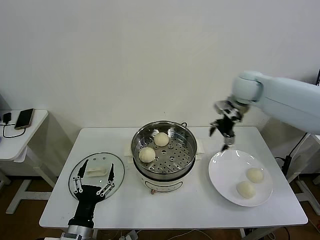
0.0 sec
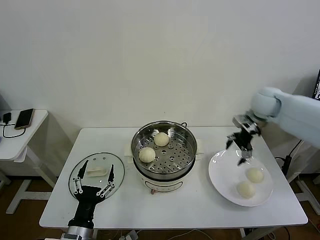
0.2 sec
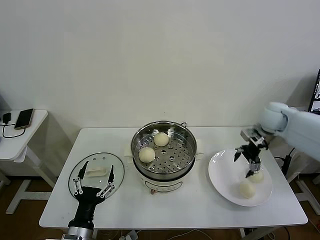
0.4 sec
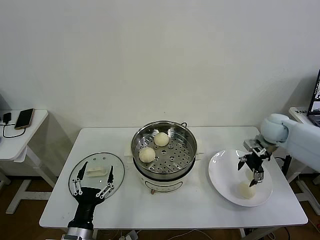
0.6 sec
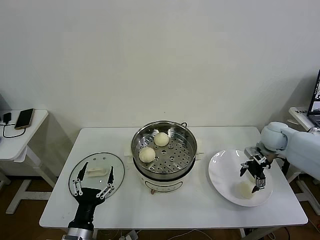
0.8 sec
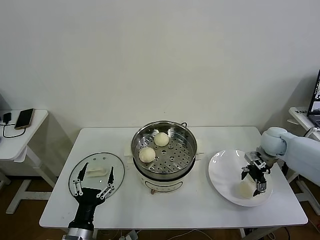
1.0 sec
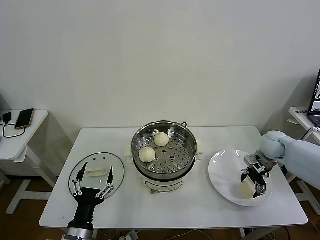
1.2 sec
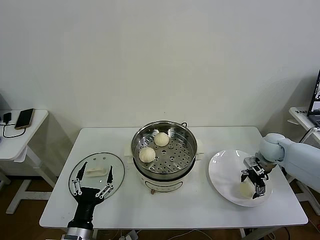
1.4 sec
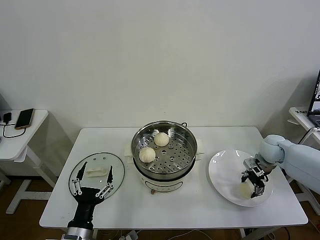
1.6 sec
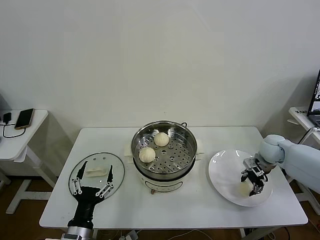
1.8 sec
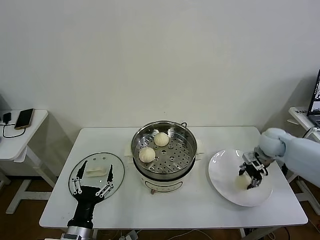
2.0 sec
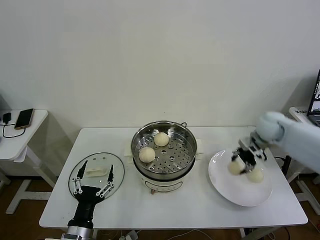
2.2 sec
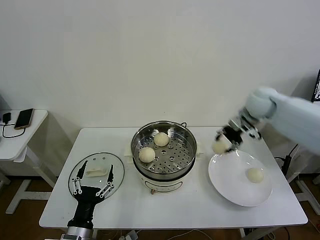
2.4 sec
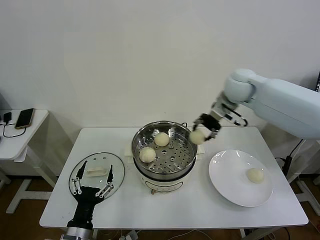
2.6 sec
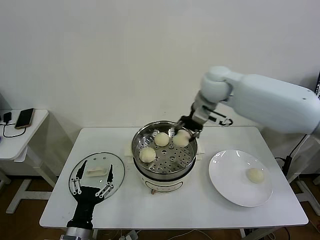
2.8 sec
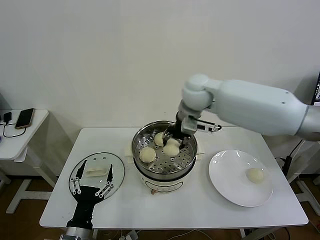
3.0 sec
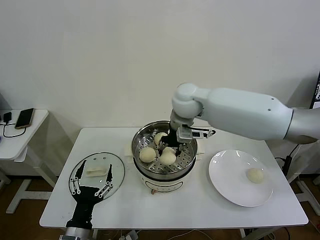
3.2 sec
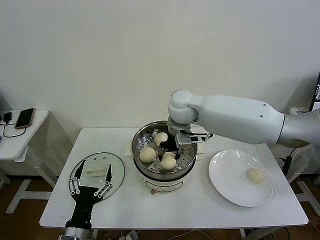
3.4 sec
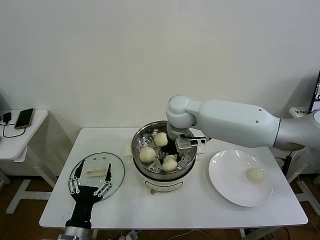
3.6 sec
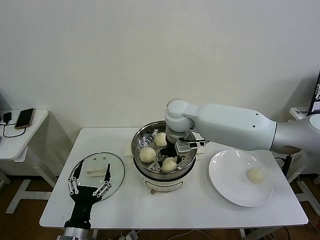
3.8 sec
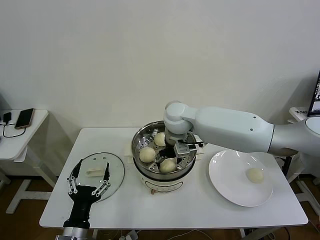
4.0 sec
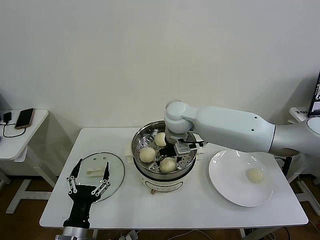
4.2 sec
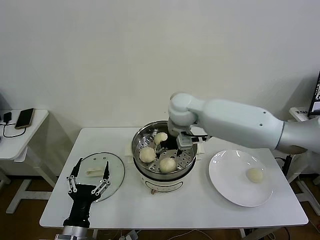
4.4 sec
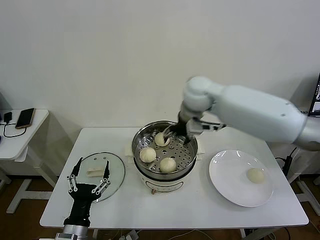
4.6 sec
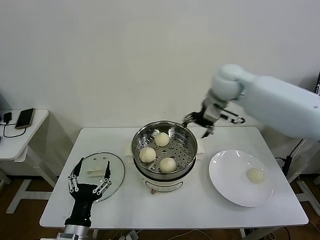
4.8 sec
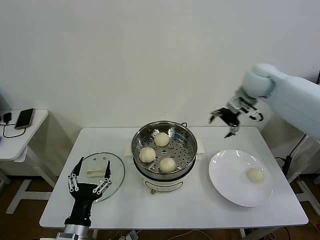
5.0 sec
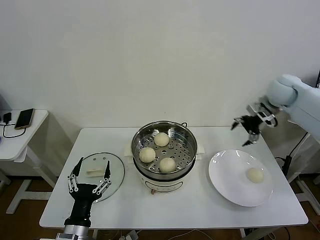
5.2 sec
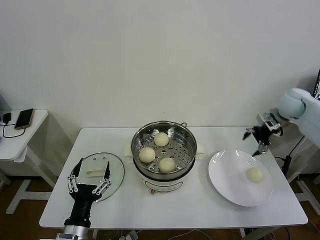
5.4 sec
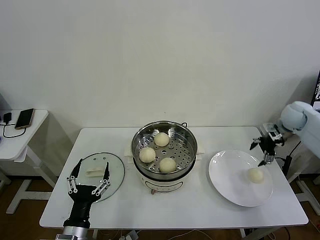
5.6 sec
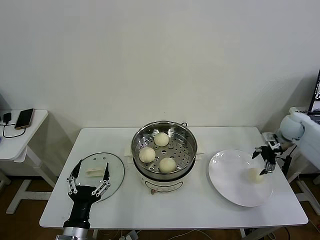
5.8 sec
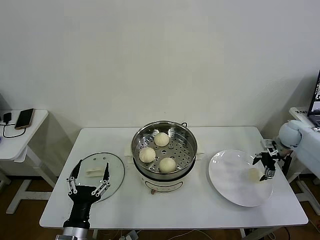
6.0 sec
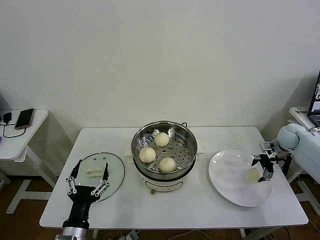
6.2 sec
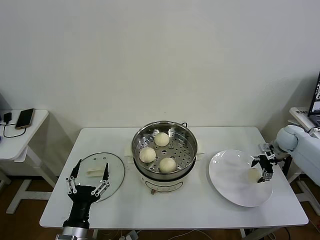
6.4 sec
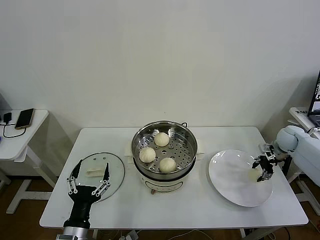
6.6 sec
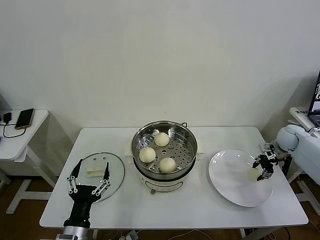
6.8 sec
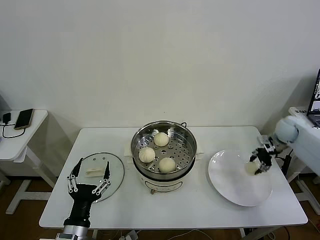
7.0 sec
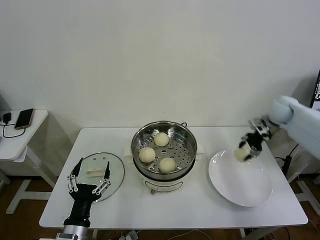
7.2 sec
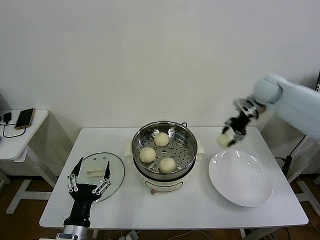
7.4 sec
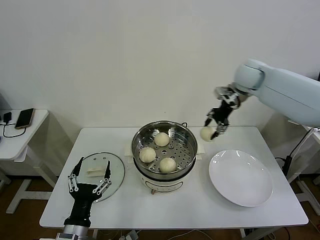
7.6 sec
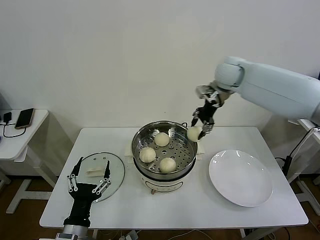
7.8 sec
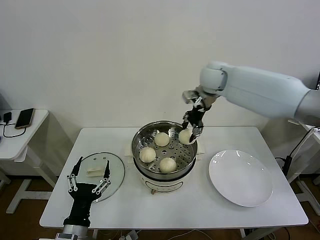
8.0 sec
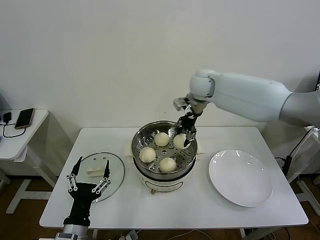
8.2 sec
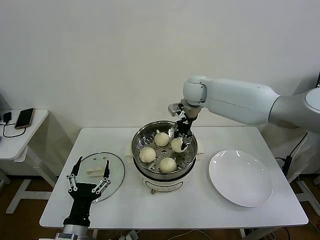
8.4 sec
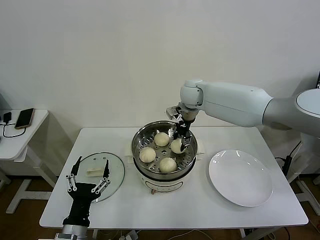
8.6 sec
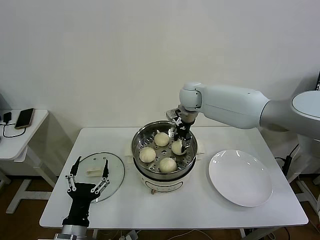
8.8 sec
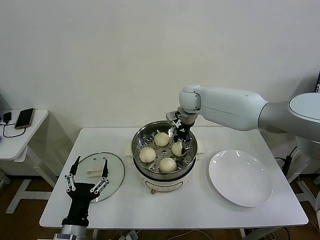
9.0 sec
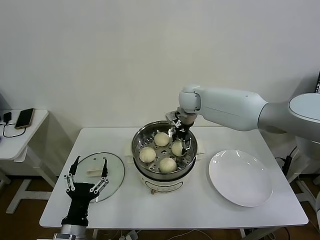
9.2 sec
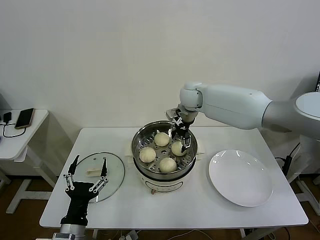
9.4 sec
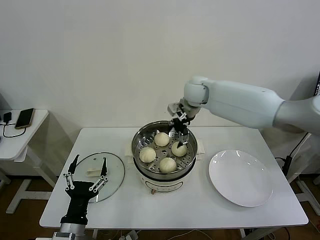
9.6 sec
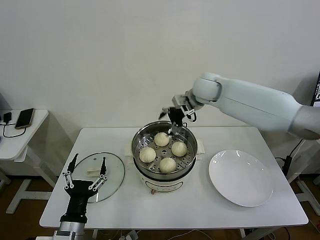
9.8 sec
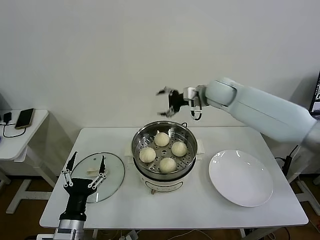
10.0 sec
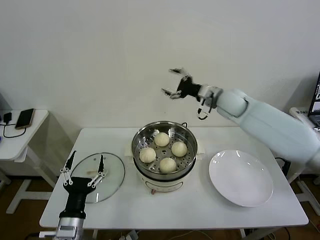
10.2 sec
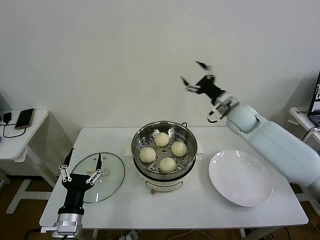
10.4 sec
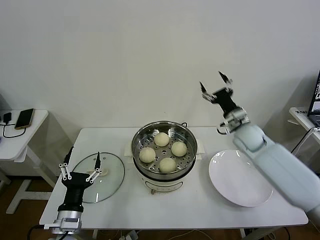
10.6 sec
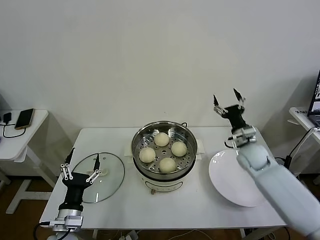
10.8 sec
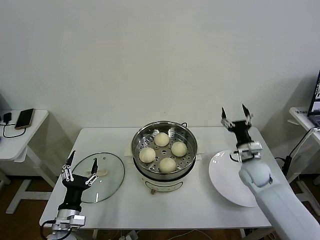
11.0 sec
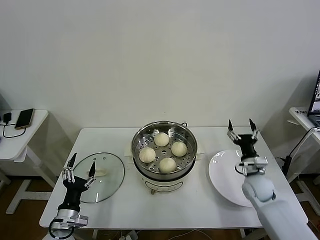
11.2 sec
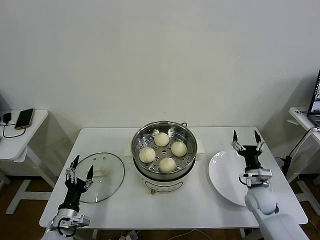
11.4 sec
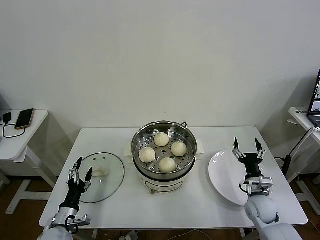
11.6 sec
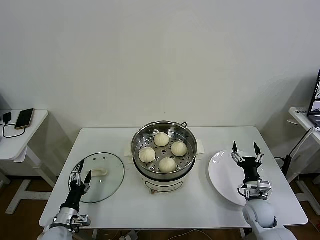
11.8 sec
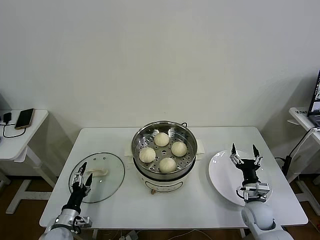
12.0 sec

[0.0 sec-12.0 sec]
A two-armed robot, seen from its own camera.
Task of the whole recording: take steamed baozi put them in steamer then cover it.
Step, 0.0 sec to 1.8 sec: Grasp the baozi in the plate with right gripper.
Step, 2.0 sec to 4.4 sec: Place the baozi on the steamer with right gripper.
Step, 4.6 sec to 6.6 sec: Grasp the baozi in the plate with right gripper.
Step, 7.0 sec to 9.2 sec: Place the baozi on the steamer with right gripper.
0.0 sec to 1.6 sec: The right gripper is displaced downward and to the right by about 20 cm, and closes its fingers.
1.6 sec to 3.0 sec: The right gripper travels to the left and upward by approximately 40 cm.
3.0 sec to 4.4 sec: The right gripper opens.
4.4 sec to 6.0 sec: The right gripper goes roughly 50 cm to the right and downward.
6.0 sec to 7.6 sec: The right gripper goes approximately 30 cm to the left and upward, and closes up.
7.6 sec to 9.0 sec: The right gripper moves to the left and downward, roughly 20 cm.
9.0 sec to 10.4 sec: The right gripper heads to the right and backward, covering some 20 cm, and opens.
10.4 sec to 12.0 sec: The right gripper is displaced downward and backward by approximately 35 cm. The left gripper goes some 20 cm downward, to the left and forward.

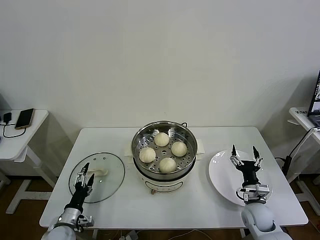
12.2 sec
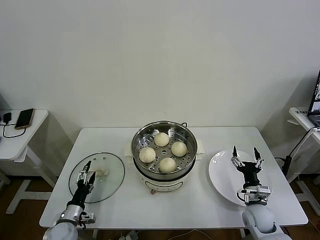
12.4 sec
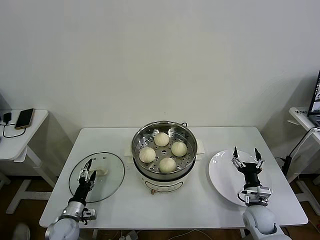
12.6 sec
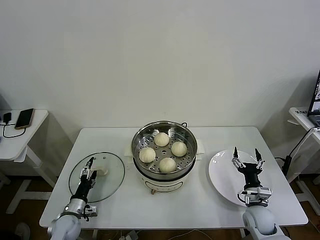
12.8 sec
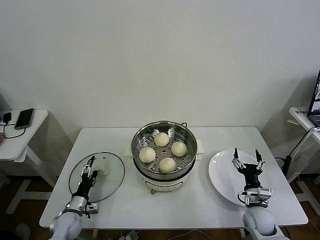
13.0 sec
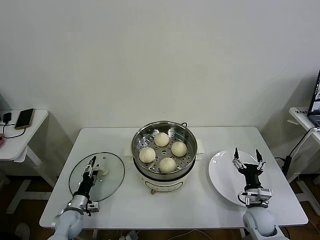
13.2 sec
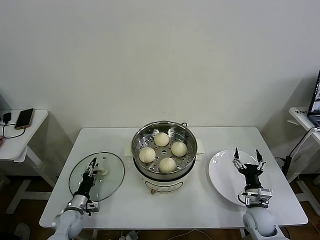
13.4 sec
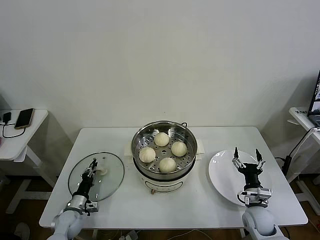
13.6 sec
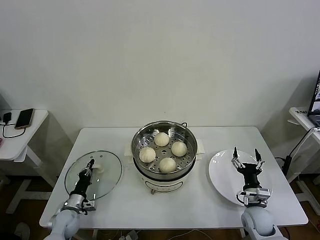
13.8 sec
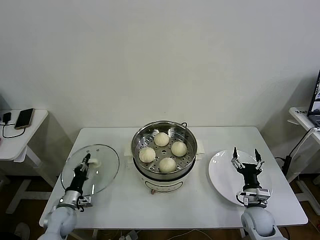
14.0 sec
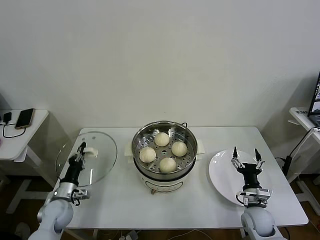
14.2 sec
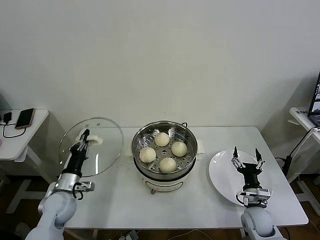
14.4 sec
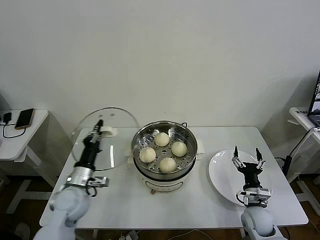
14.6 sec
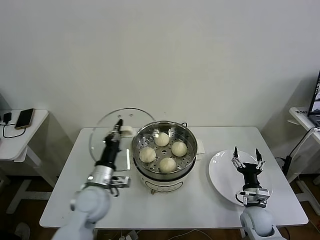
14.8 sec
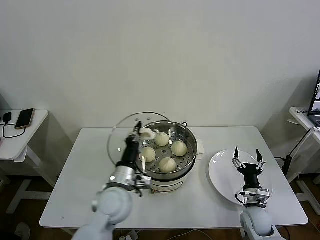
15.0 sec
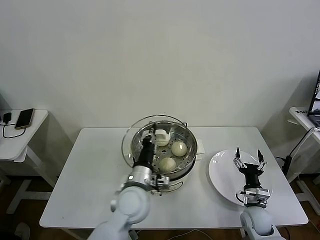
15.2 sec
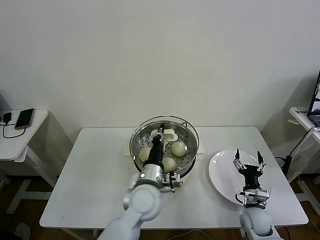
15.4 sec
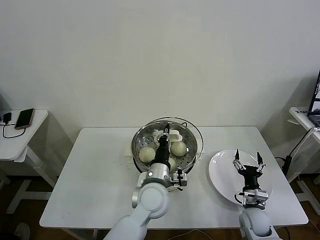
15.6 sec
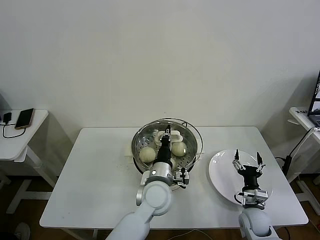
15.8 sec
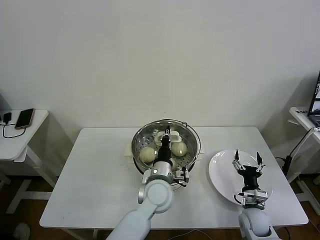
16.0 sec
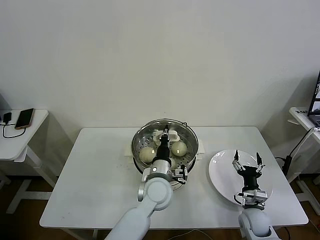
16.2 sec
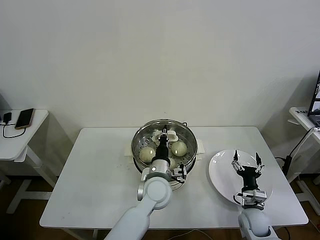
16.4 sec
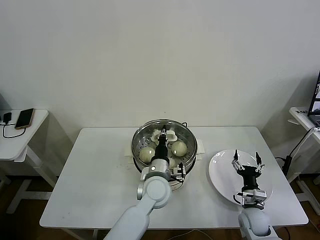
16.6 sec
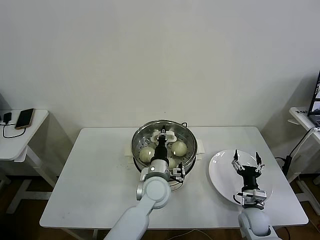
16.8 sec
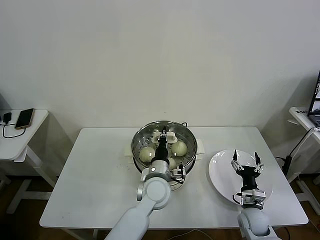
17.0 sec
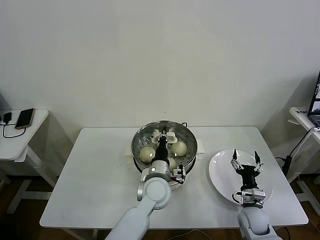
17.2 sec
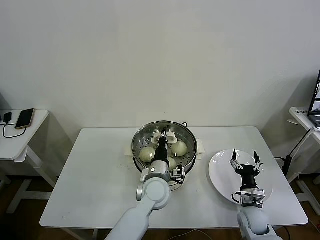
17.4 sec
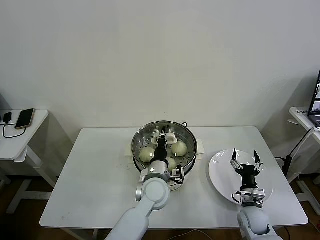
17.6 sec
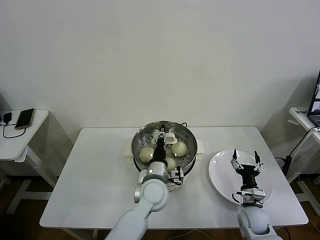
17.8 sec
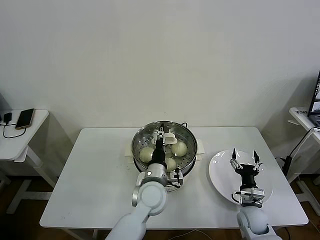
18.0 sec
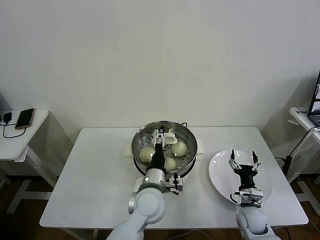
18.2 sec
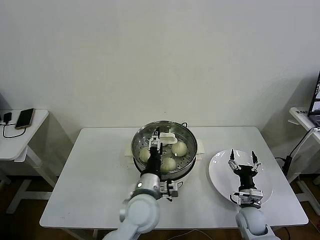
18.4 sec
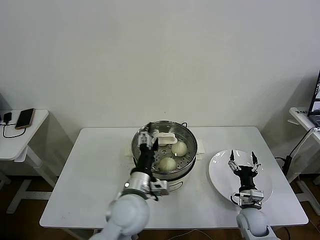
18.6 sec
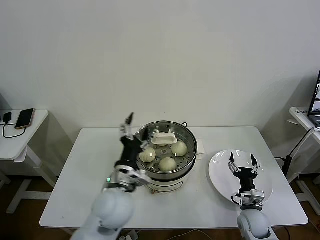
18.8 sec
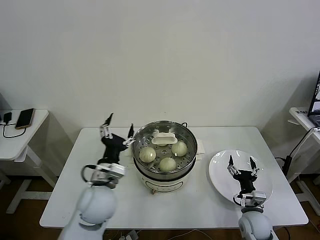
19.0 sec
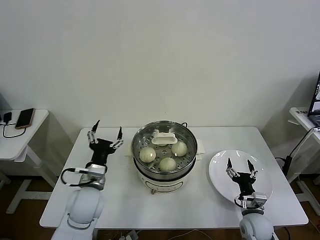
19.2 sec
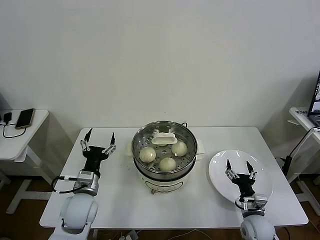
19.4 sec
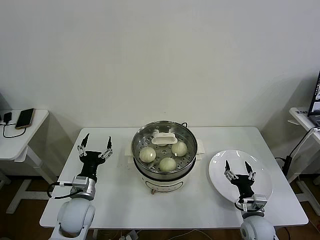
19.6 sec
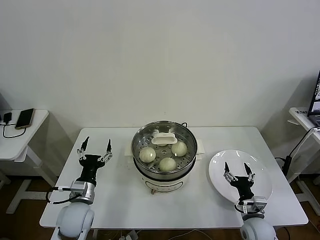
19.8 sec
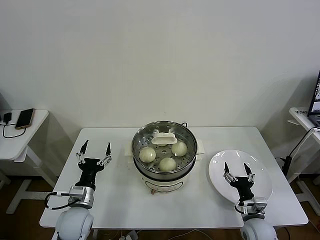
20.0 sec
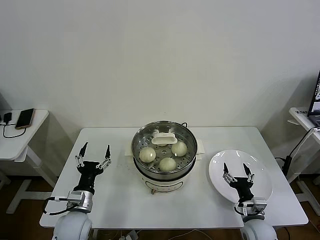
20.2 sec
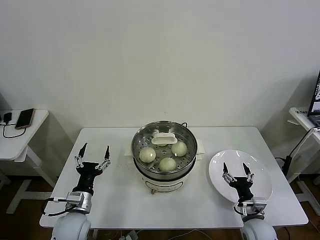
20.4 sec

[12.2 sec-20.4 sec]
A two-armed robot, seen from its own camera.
Task of the whole recording: take steamed baozi put them in steamer then cover it.
Step, 14.0 sec to 18.0 sec: Place the pot lid on the steamer with left gripper.
12.2 sec to 13.8 sec: The left gripper heads forward, covering some 5 cm, and closes.
13.8 sec to 15.4 sec: The left gripper goes about 40 cm to the right and upward.
15.4 sec to 17.2 sec: The left gripper shifts by about 5 cm.
17.2 sec to 18.8 sec: The left gripper goes about 15 cm to the left, backward and upward, and opens up.
18.8 sec to 20.4 sec: The left gripper goes approximately 20 cm to the left and downward.

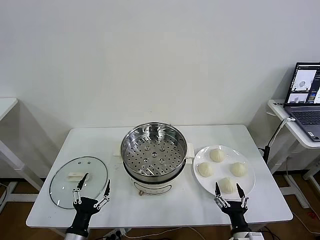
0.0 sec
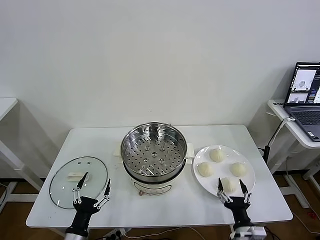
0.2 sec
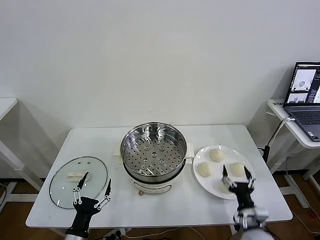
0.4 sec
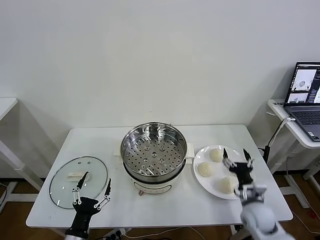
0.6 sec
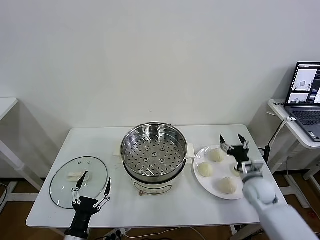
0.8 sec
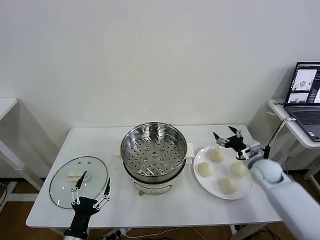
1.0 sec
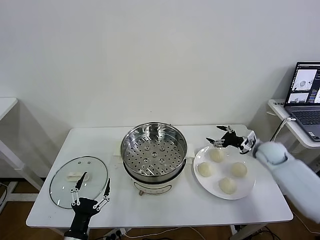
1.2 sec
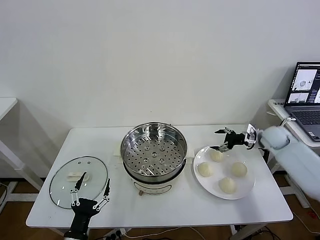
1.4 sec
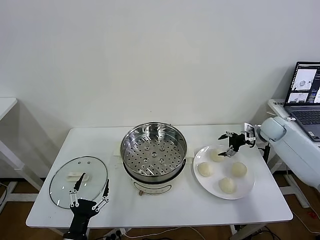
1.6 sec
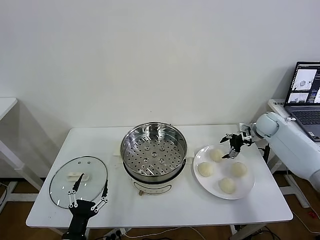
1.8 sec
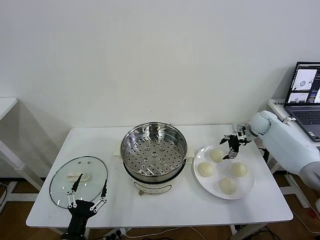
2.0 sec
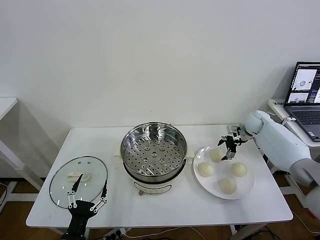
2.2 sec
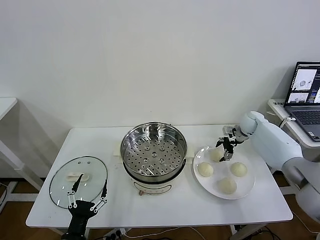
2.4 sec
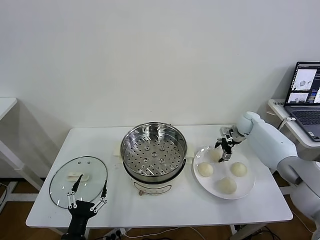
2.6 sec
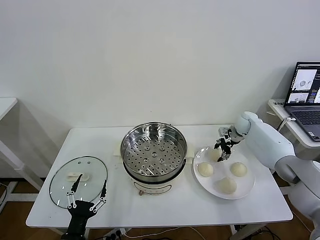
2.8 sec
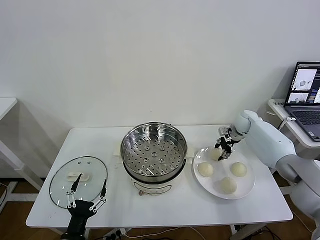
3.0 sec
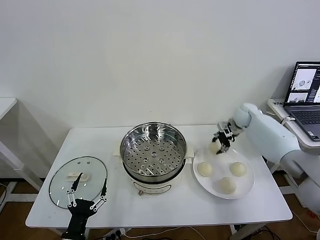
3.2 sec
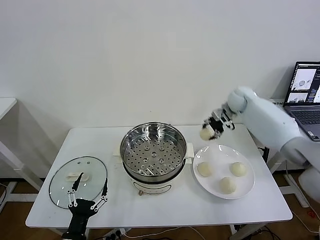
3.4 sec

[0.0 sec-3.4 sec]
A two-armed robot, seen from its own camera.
Task of the whole recording: take steamed baozi put them in steamer then cover it.
Step, 0.0 sec to 2.8 sec: Grasp the baozi in the plate with right gripper.
1.6 sec to 3.4 sec: The right gripper is displaced to the left, upward and forward by some 20 cm, and closes up.
